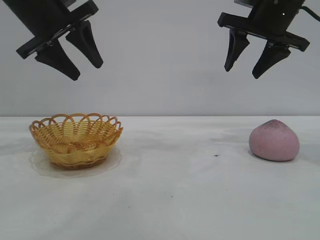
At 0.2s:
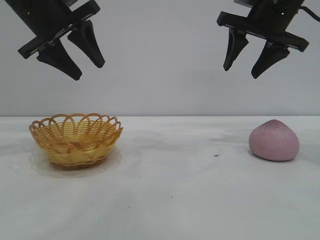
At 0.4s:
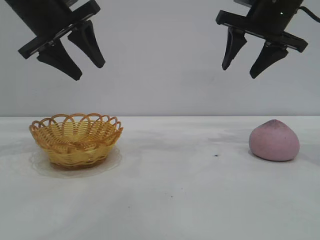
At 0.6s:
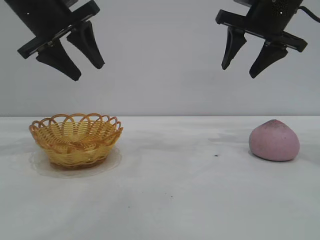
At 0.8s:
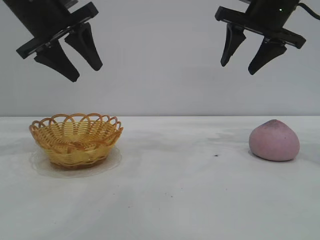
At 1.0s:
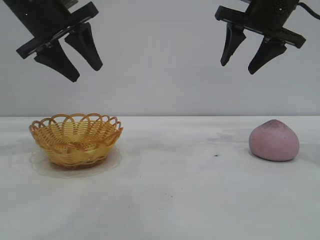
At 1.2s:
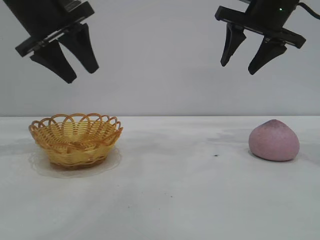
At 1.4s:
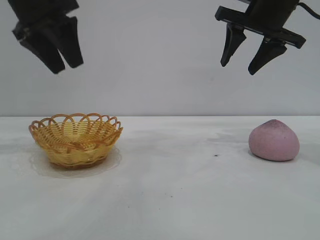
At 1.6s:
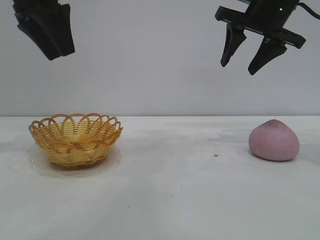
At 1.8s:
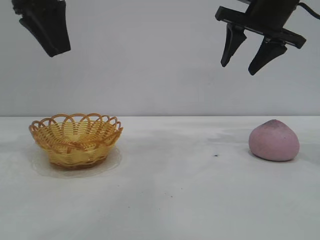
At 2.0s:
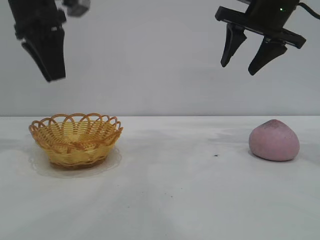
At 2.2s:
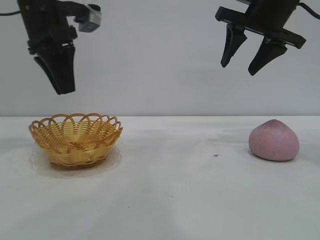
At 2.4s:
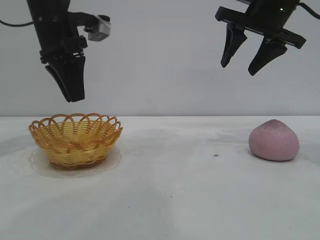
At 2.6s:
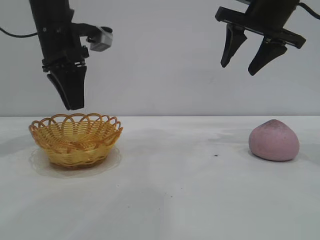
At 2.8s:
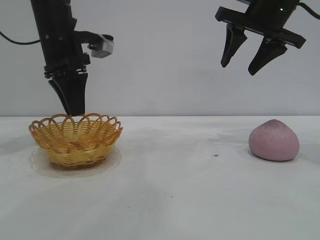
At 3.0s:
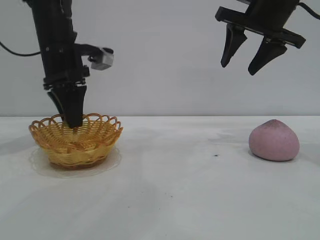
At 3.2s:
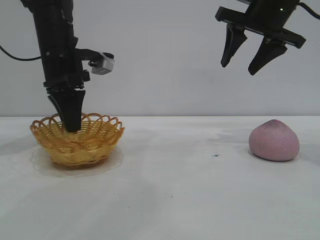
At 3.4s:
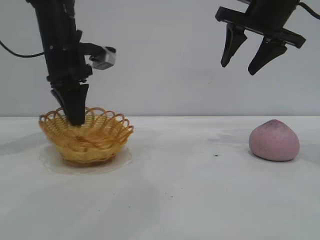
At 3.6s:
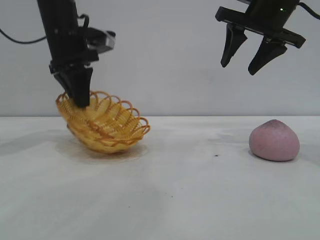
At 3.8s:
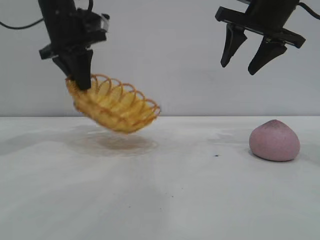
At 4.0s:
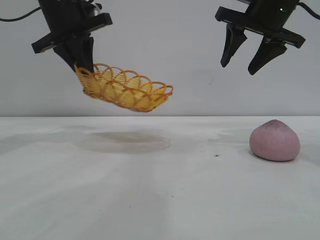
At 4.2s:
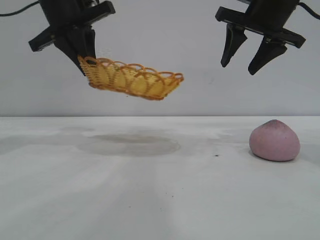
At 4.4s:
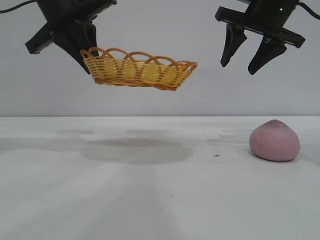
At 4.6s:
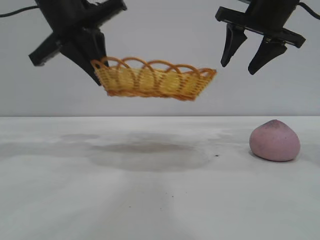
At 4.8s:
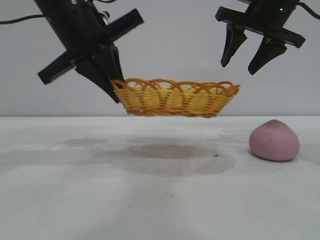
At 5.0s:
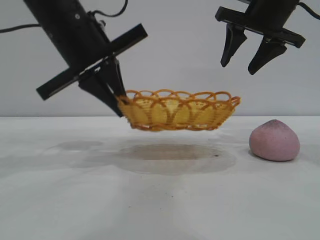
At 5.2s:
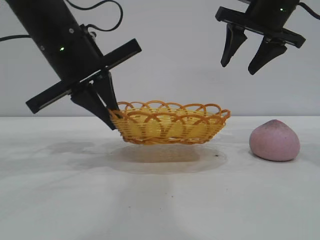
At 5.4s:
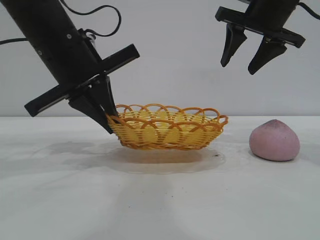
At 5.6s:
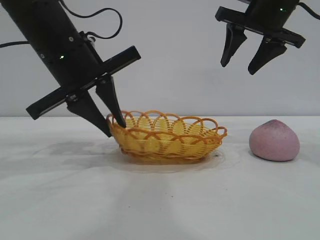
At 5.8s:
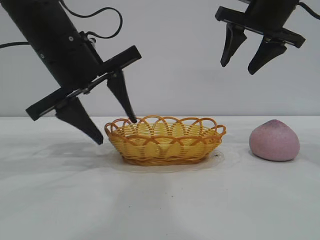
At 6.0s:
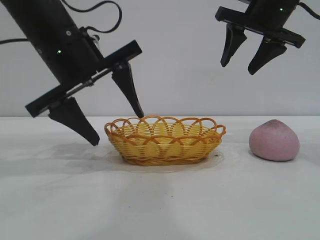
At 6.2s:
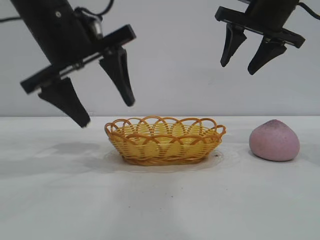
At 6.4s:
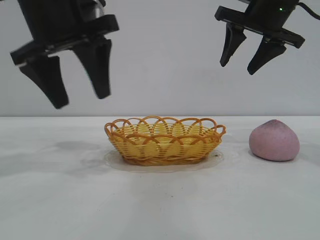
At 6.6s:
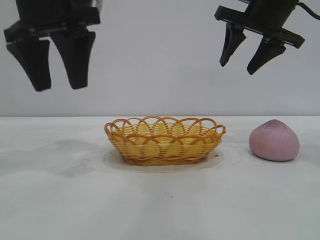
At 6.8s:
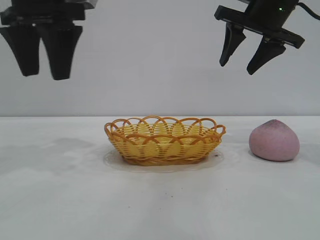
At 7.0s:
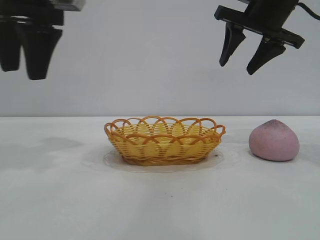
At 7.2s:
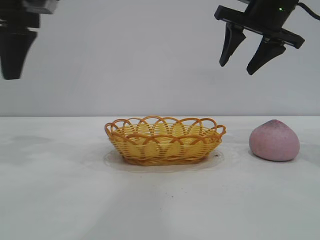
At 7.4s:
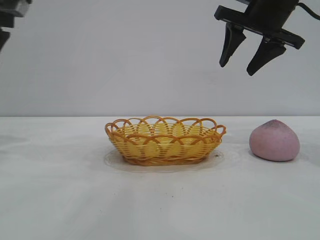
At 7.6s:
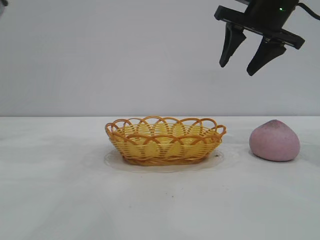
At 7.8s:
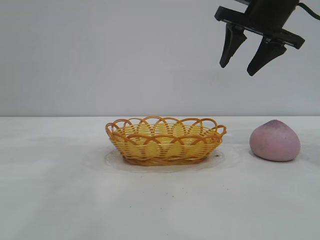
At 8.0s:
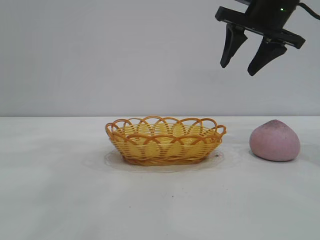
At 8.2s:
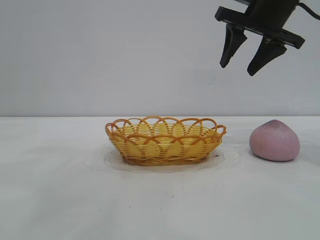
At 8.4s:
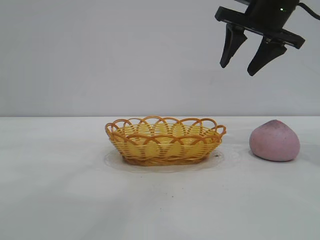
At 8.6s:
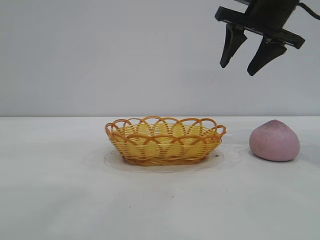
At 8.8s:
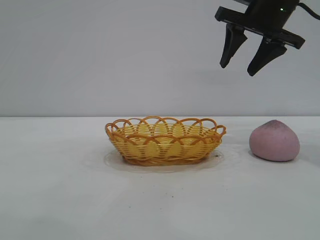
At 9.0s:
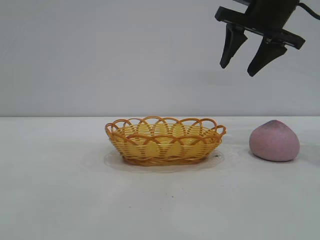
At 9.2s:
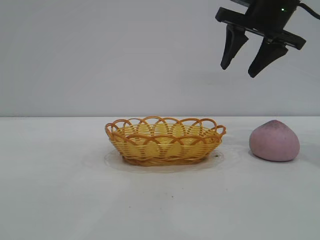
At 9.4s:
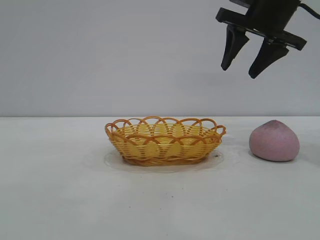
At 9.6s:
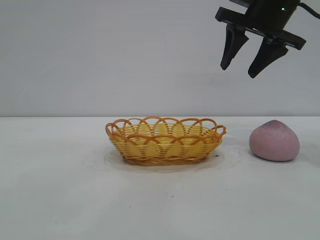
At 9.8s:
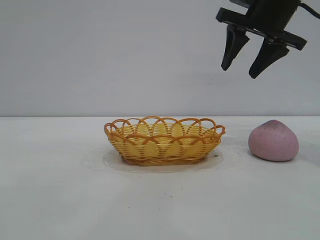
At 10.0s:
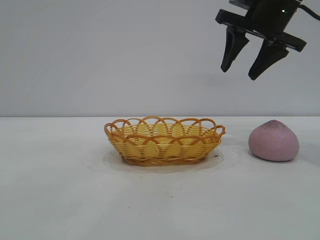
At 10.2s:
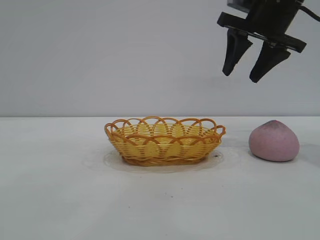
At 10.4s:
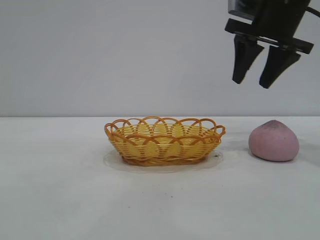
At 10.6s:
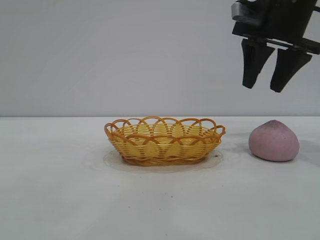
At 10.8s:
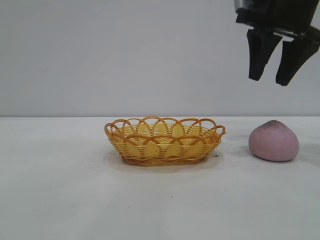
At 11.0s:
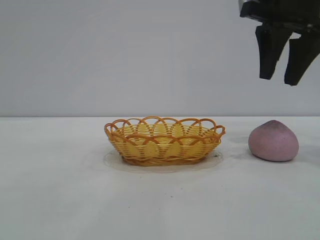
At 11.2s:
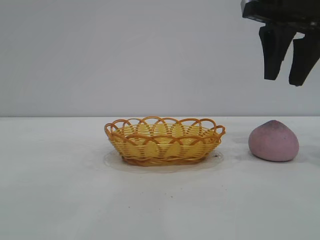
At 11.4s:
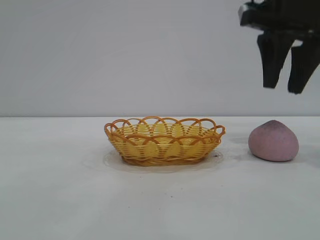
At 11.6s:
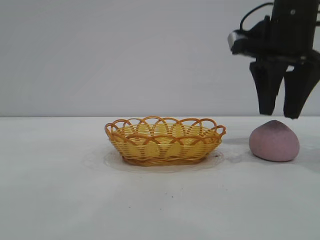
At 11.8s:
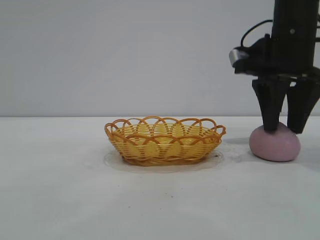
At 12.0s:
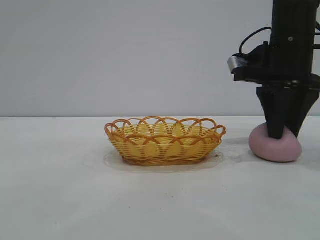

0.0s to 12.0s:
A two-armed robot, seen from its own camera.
Task of the whole recording: pick up the peach and put it into the basket.
Step, 0.0s to 6.4s: Move the basket to the center of view.

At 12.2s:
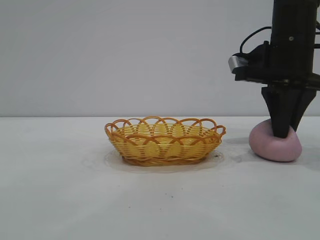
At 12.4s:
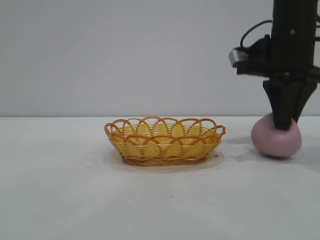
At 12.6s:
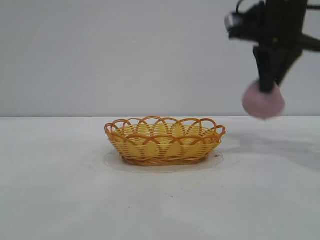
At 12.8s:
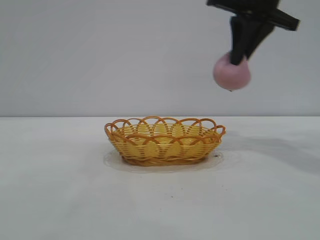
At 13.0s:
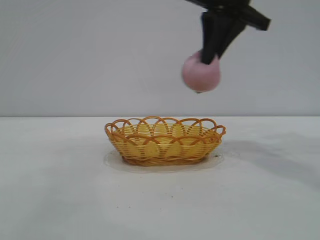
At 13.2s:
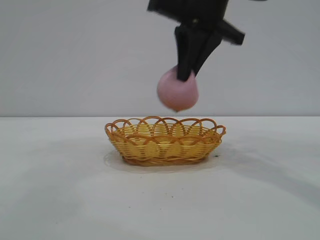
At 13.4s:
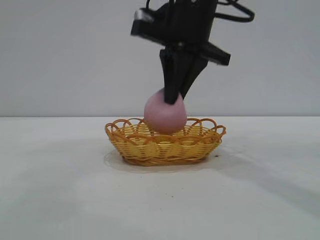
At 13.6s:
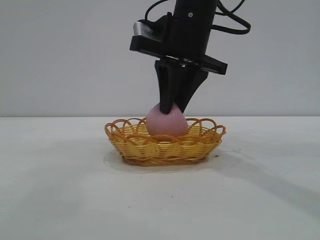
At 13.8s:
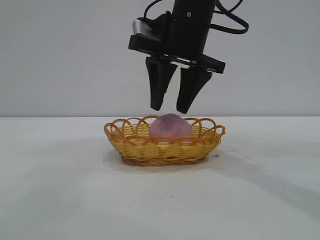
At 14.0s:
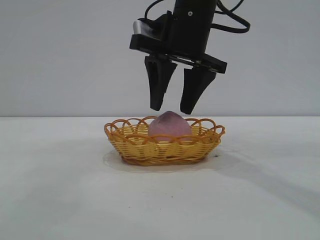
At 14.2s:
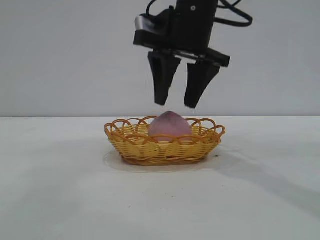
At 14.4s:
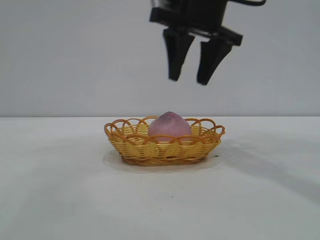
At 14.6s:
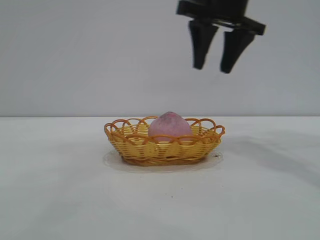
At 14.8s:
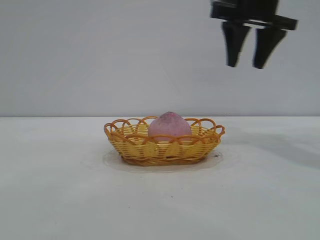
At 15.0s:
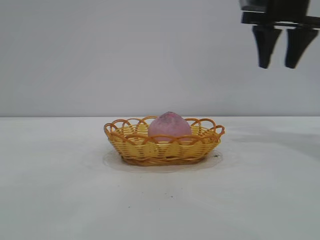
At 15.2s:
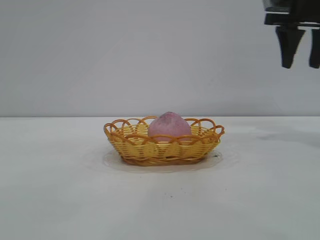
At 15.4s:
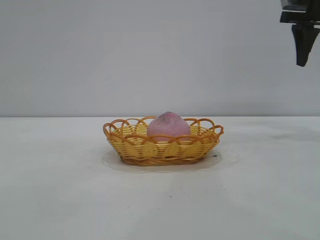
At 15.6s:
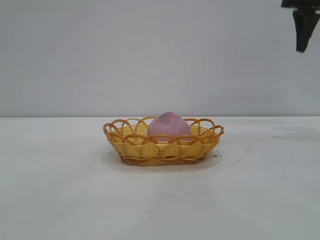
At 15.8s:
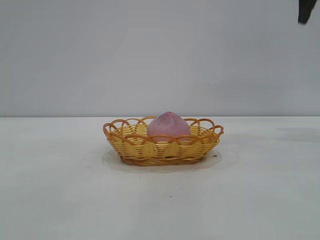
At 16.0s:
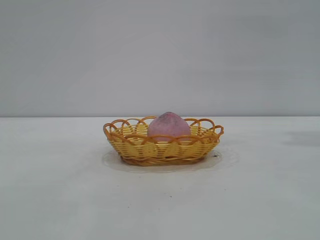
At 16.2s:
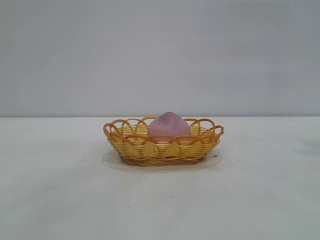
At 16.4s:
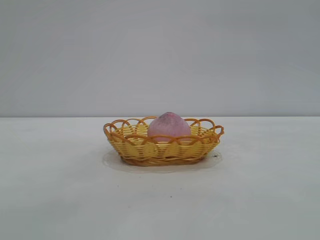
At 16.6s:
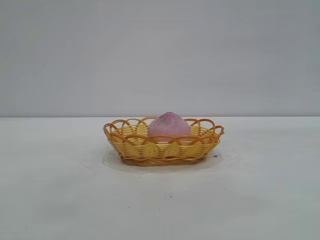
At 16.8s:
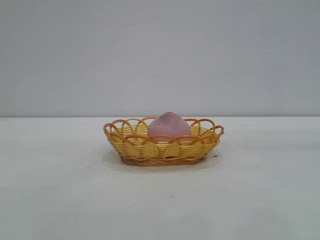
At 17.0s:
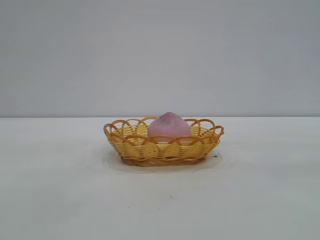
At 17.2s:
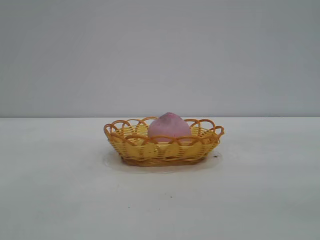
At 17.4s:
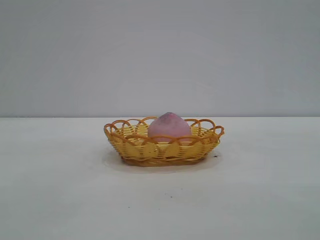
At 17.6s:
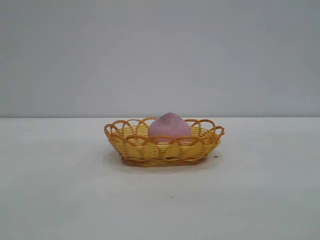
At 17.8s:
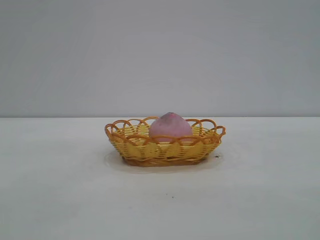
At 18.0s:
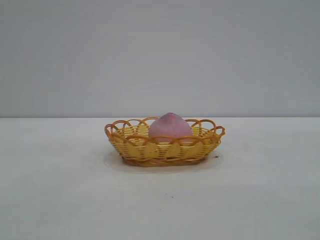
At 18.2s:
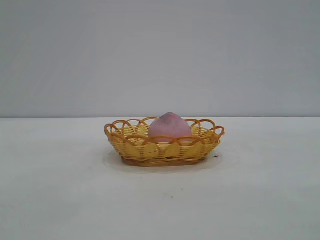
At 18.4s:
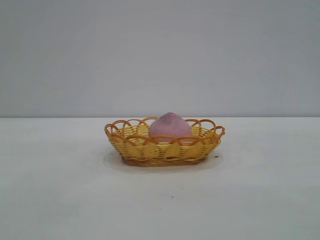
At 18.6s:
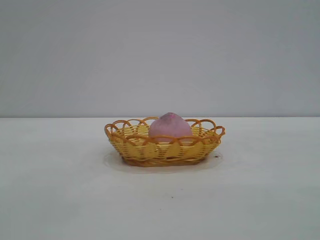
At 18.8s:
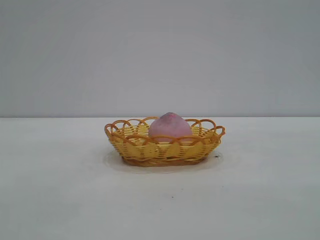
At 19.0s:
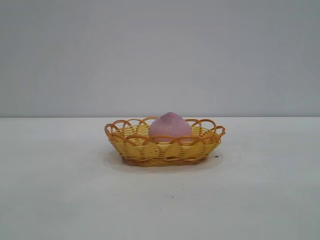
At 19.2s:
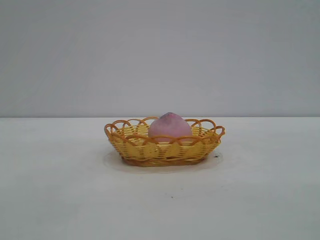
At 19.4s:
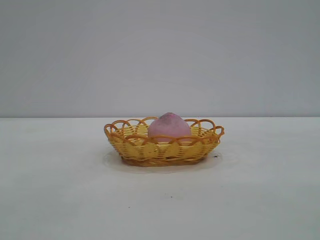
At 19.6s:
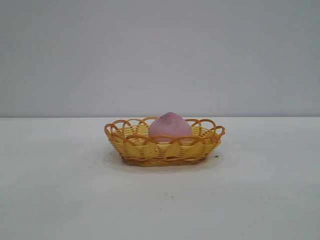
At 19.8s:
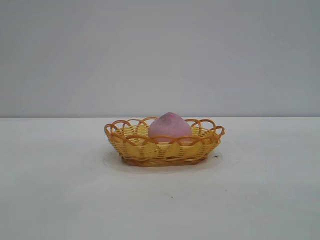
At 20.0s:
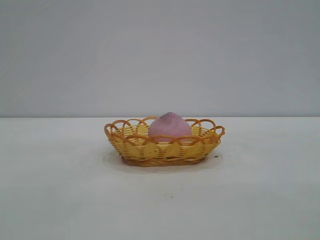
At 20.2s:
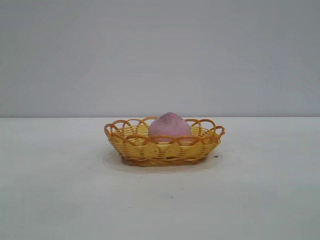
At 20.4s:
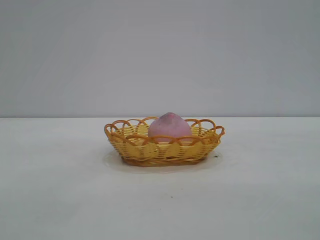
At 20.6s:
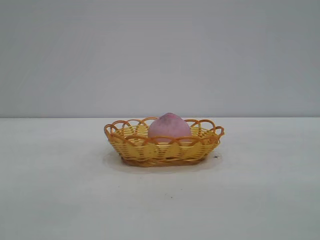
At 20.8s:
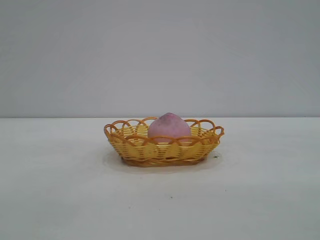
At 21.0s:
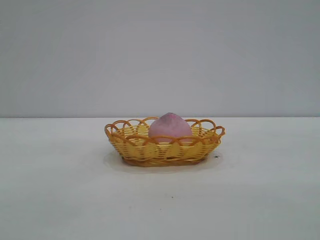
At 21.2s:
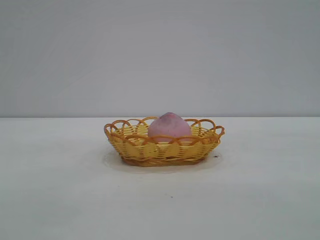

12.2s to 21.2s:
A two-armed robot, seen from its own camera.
Task of the whole recording: pick up the peach and put it into the basket.
Step, 12.8s to 14.2s: place the peach into the basket.

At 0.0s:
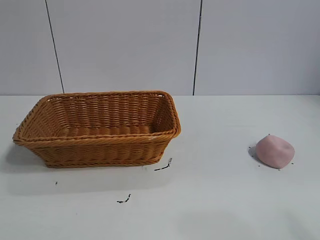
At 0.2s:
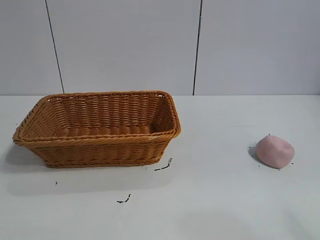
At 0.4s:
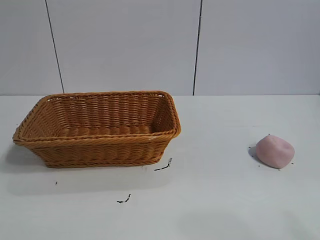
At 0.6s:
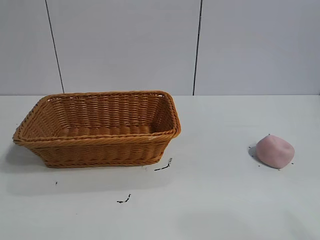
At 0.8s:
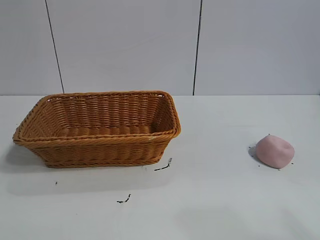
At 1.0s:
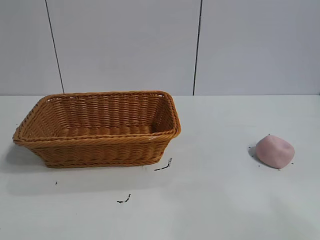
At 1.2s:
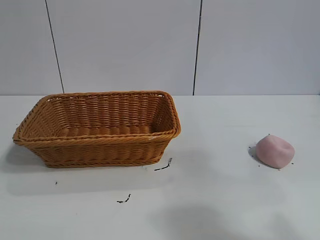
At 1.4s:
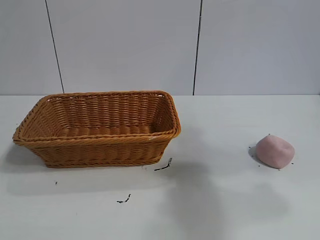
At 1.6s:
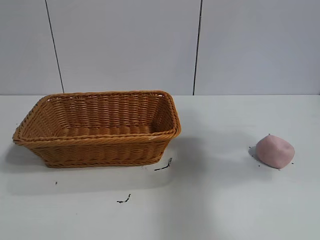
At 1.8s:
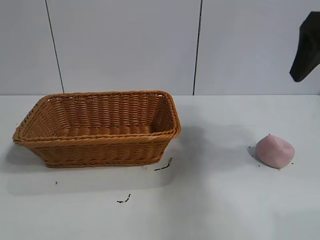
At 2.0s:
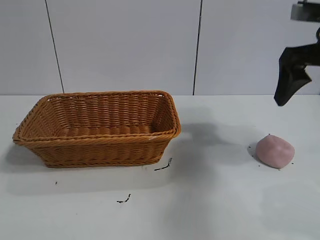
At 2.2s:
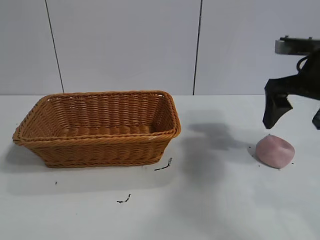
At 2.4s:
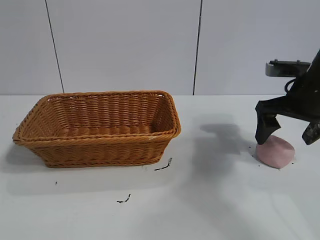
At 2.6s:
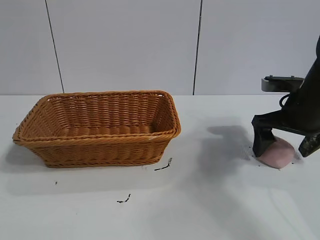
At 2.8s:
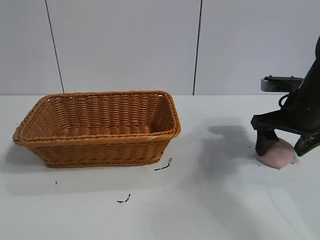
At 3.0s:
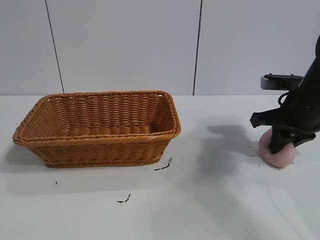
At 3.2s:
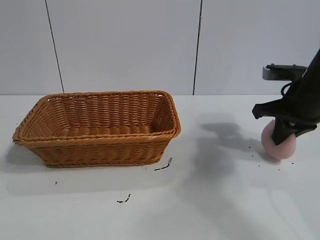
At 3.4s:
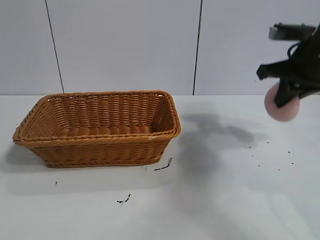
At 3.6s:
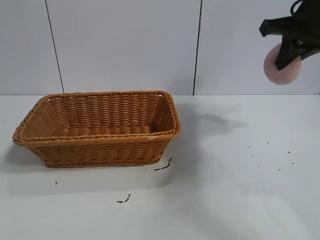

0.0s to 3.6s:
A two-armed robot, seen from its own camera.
Task of the whole recording: pick up the peach and put it into the basket.
Step, 0.8s to 3.0s: Grasp the peach with right gripper.
